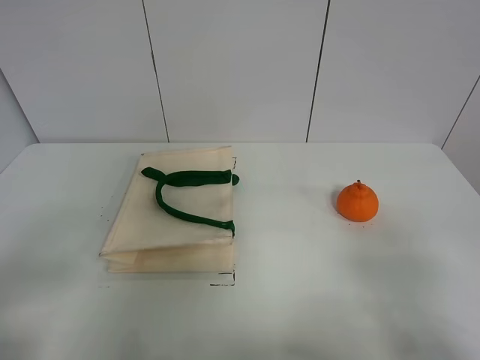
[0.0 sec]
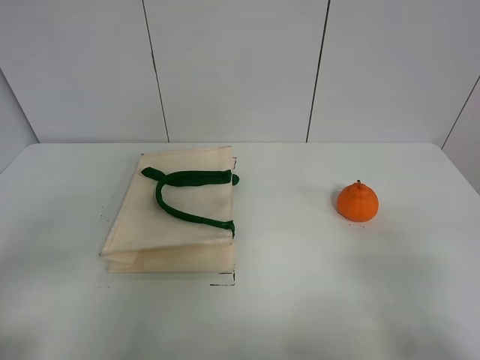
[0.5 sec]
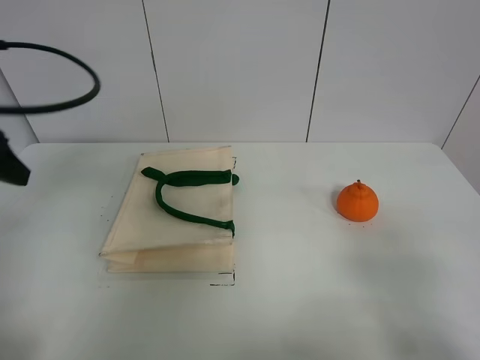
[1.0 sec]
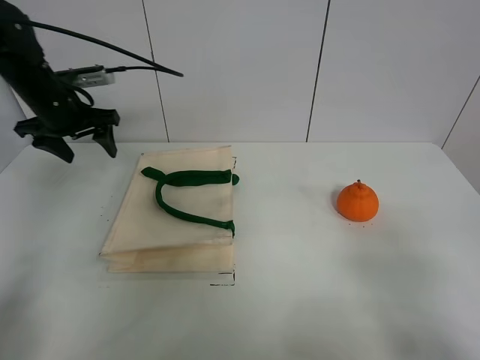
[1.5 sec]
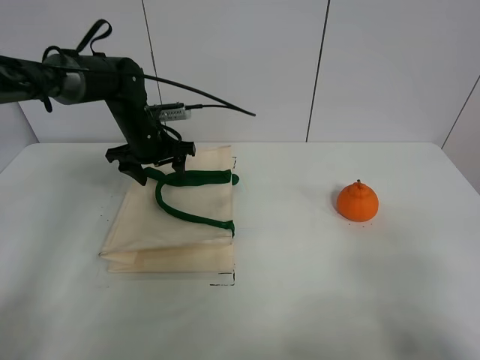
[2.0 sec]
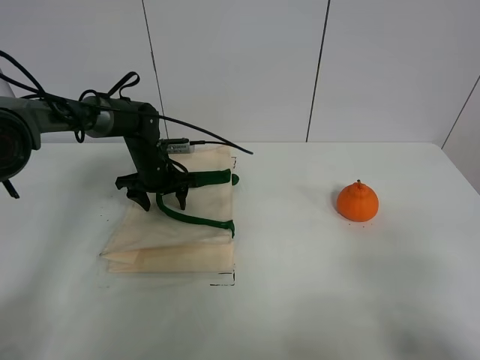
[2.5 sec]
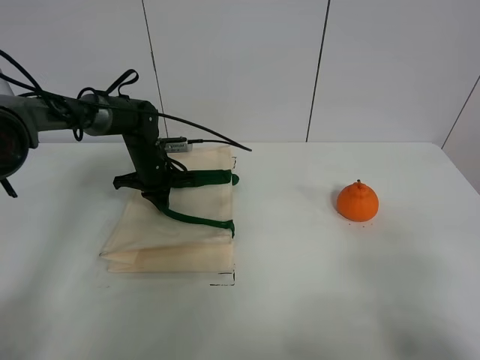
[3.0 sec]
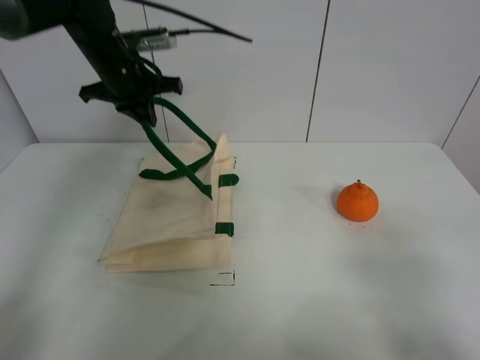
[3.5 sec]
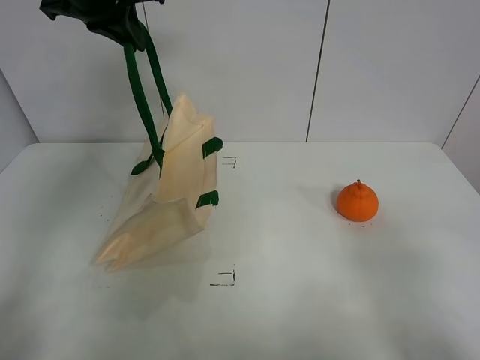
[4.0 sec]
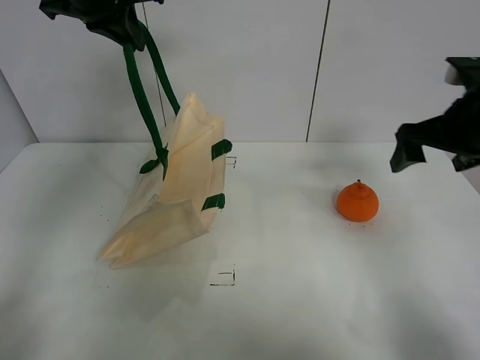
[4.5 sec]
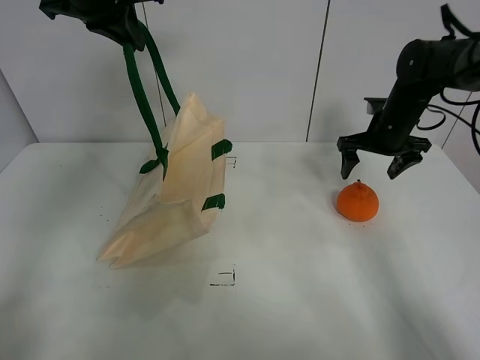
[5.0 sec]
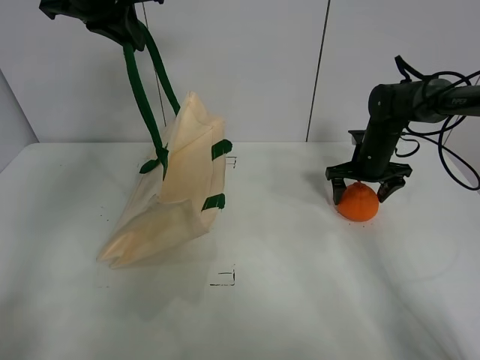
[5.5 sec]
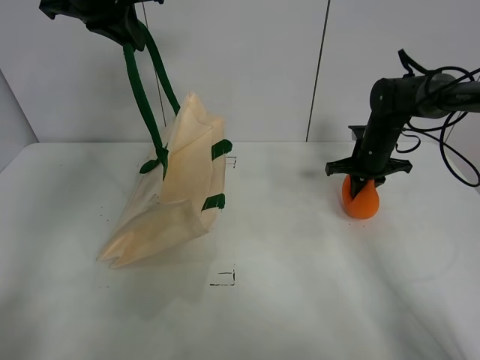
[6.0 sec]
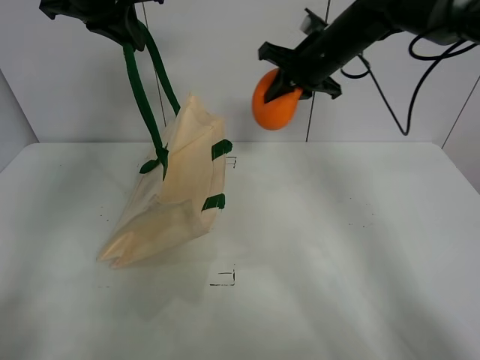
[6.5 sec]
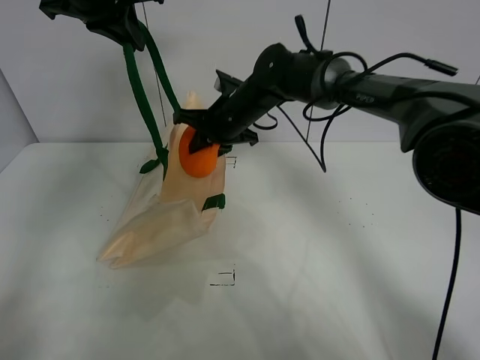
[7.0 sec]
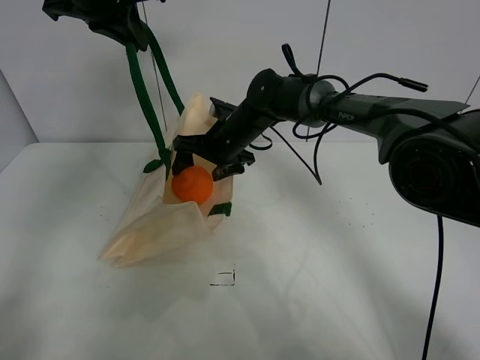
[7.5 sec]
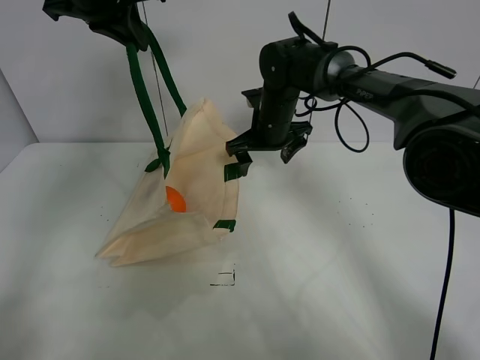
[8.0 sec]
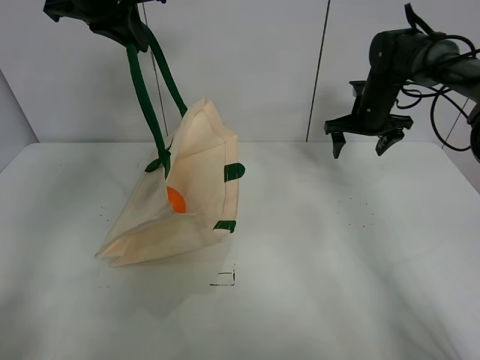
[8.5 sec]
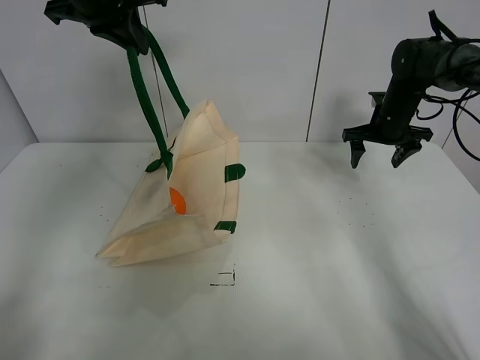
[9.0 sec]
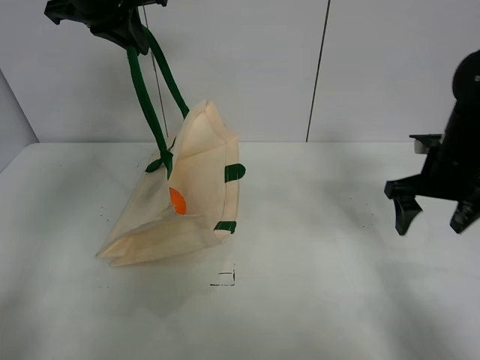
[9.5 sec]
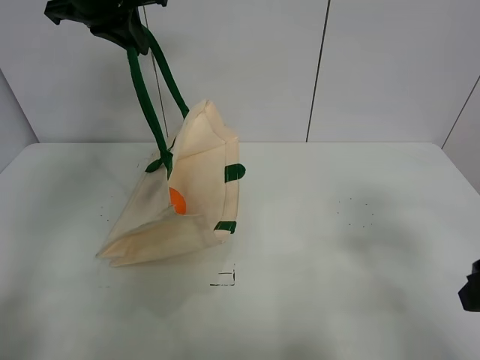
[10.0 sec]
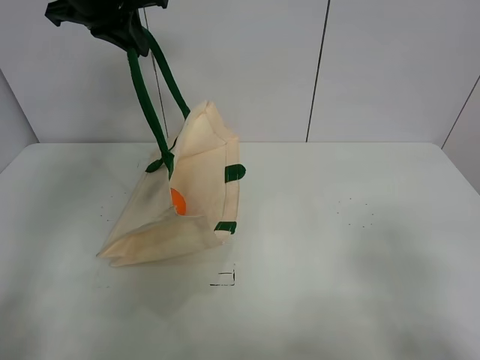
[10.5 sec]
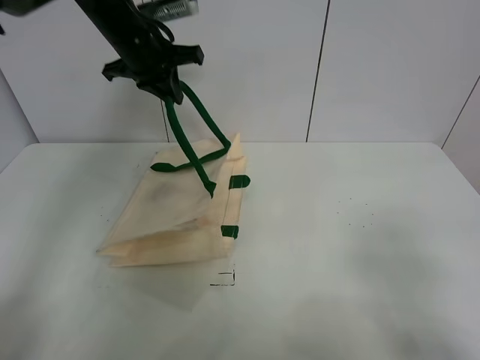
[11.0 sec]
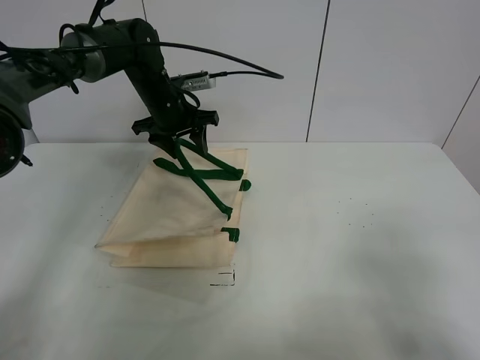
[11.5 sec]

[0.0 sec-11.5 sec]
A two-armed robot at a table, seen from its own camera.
Task of the whole recording: open the white linen bag and put the orange in the bag.
Step, 0.0 sec to 3.5 sec: Lift the handbag with left gripper.
Step, 4.0 sec to 5.5 sec: Grasp the orange with right gripper.
Step, 6.0 sec to 7.5 sec: Place the orange in the handbag with right gripper.
0.0 sec to 2.0 sec: The left gripper moves forward, approximately 40 cm.
2.0 sec to 4.0 sec: The left gripper travels upward by approximately 25 cm, and closes.
4.0 sec to 6.0 sec: The right gripper is displaced forward by about 40 cm, and closes up.
6.0 sec to 7.5 sec: The right gripper is displaced to the left by approximately 25 cm, and opens its fingers.
7.5 sec to 9.5 sec: The right gripper heads to the right and backward, covering approximately 30 cm.
9.5 sec to 11.5 sec: The left gripper moves downward and forward, about 20 cm, and opens; the right gripper goes some 30 cm backward.

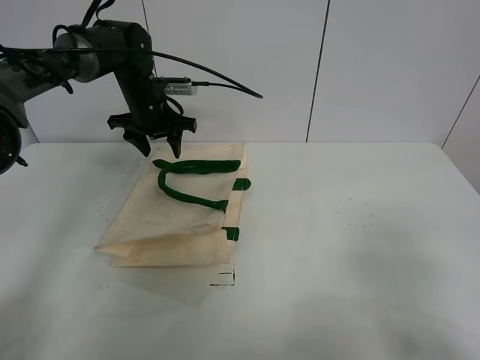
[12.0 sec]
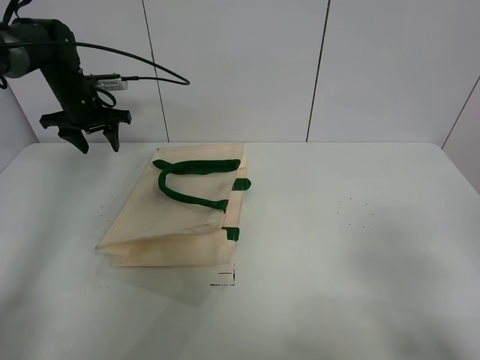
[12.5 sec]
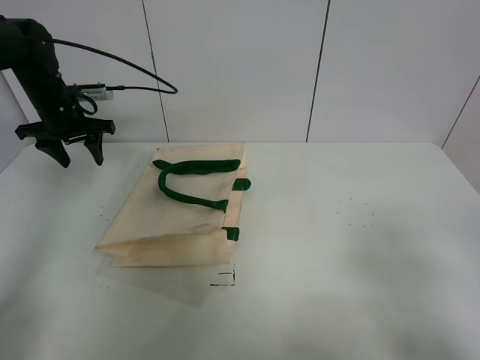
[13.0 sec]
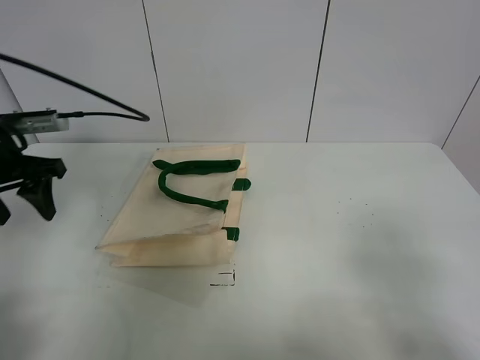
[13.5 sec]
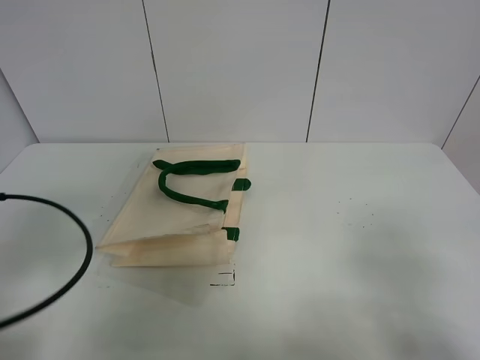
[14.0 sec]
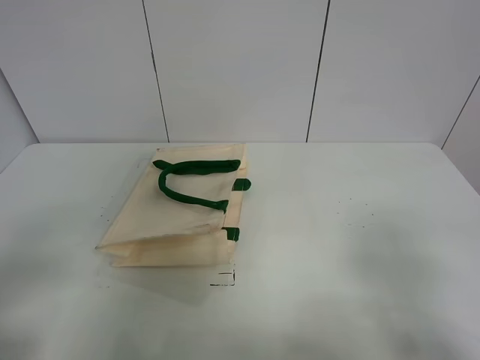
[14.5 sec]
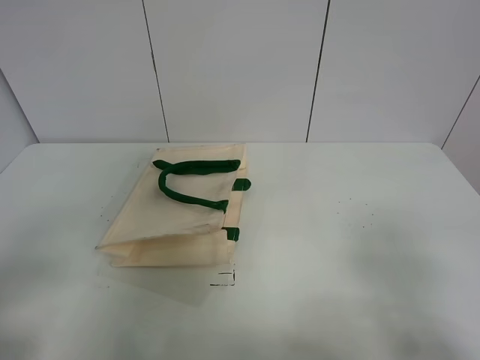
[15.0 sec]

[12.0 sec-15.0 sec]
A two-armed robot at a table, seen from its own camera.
Task of the whole recording: open the white linen bag and put the orange in the bag.
12.0 sec to 13.5 sec: The left gripper is displaced backward and to the left by roughly 25 cm.
13.5 sec to 15.0 sec: The left gripper is displaced backward by roughly 30 cm.
